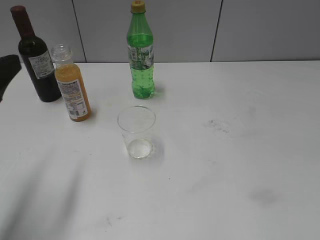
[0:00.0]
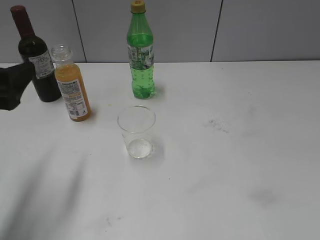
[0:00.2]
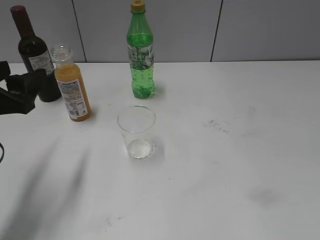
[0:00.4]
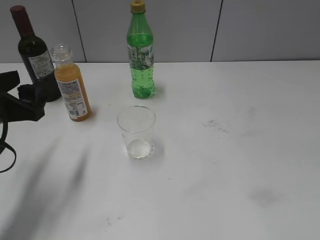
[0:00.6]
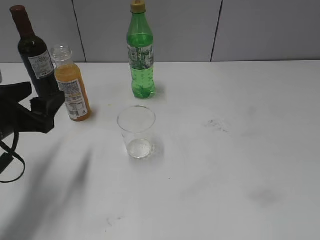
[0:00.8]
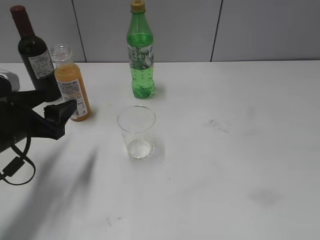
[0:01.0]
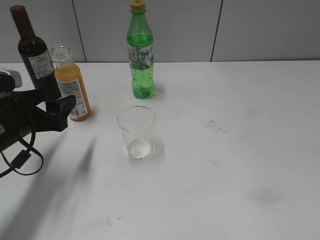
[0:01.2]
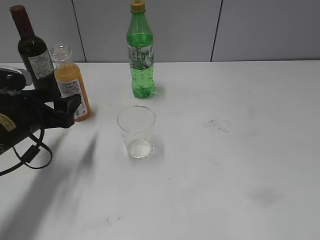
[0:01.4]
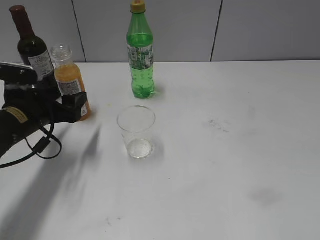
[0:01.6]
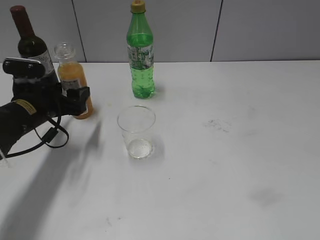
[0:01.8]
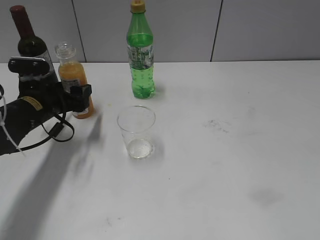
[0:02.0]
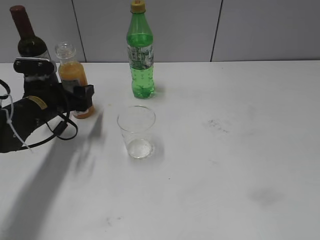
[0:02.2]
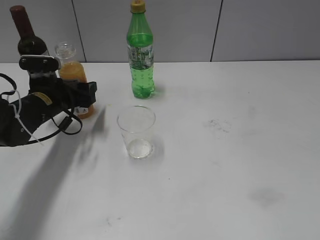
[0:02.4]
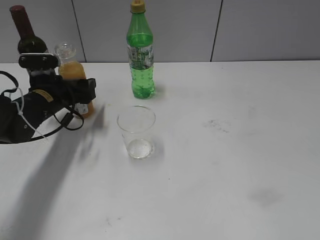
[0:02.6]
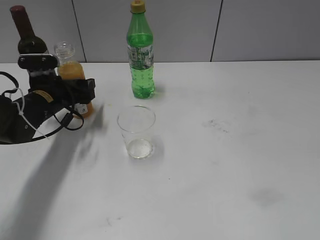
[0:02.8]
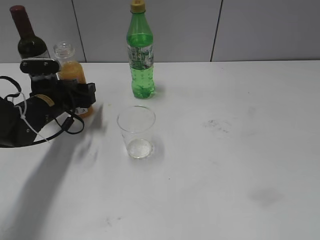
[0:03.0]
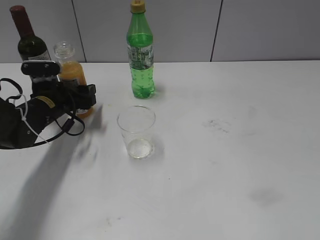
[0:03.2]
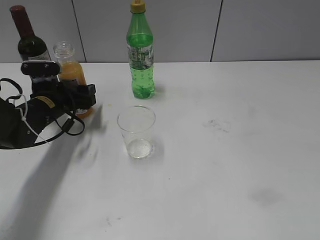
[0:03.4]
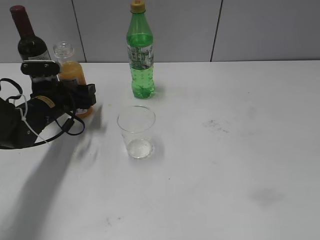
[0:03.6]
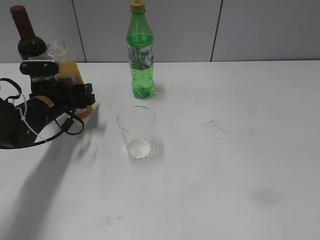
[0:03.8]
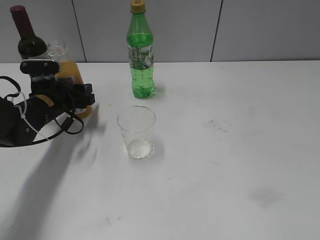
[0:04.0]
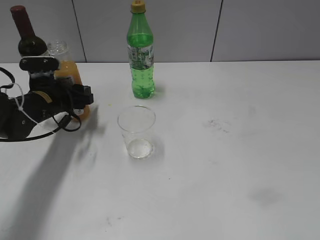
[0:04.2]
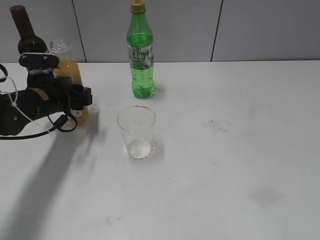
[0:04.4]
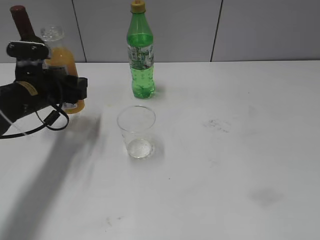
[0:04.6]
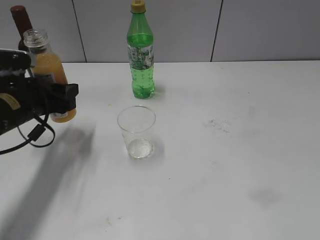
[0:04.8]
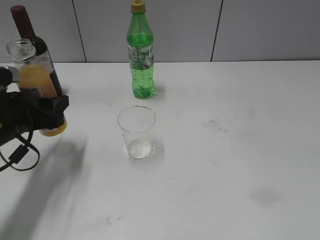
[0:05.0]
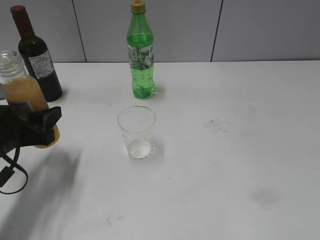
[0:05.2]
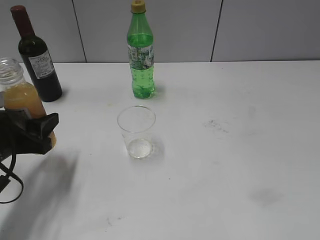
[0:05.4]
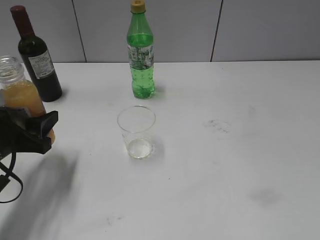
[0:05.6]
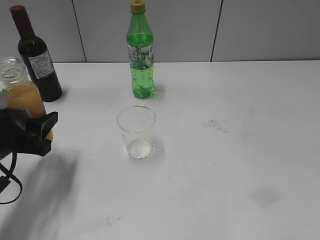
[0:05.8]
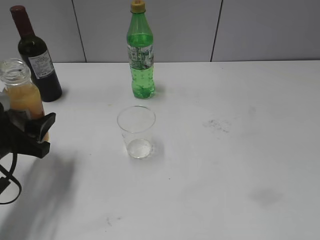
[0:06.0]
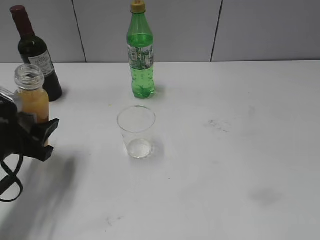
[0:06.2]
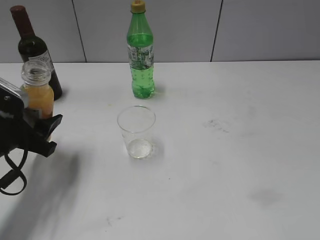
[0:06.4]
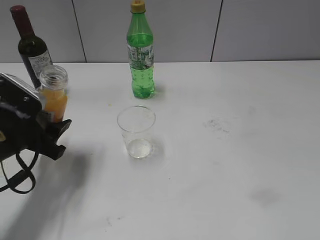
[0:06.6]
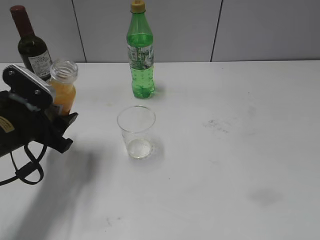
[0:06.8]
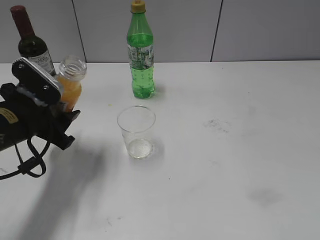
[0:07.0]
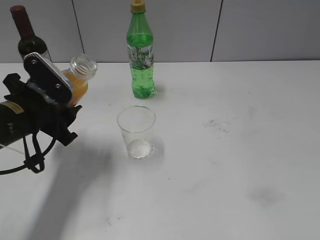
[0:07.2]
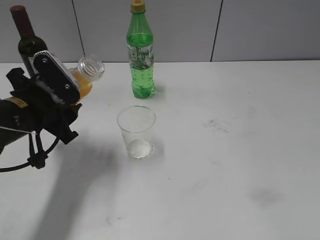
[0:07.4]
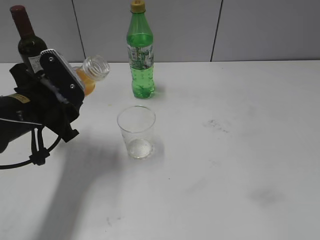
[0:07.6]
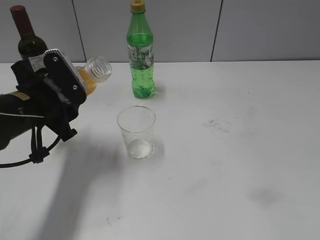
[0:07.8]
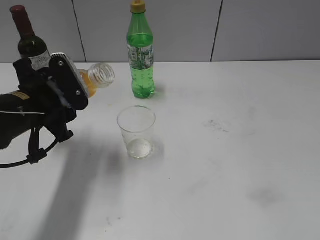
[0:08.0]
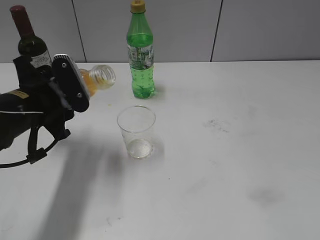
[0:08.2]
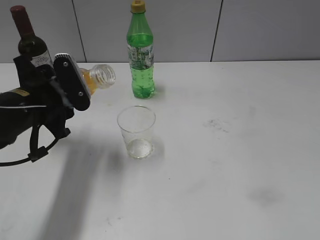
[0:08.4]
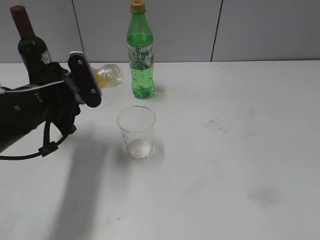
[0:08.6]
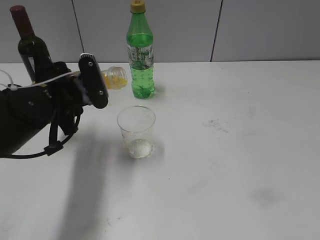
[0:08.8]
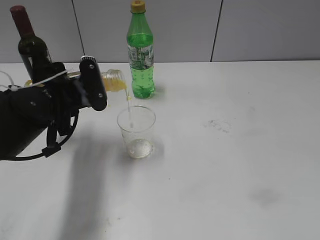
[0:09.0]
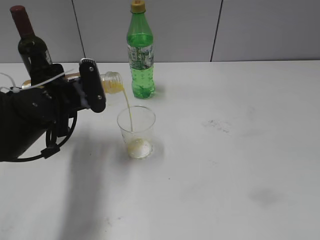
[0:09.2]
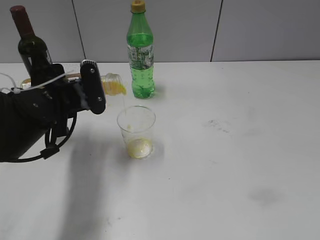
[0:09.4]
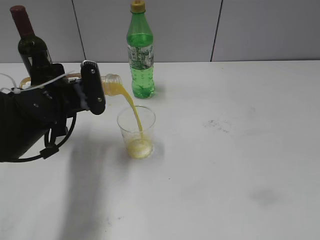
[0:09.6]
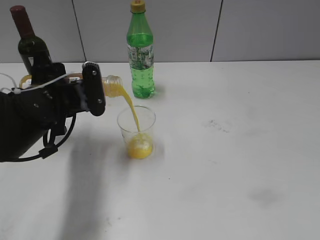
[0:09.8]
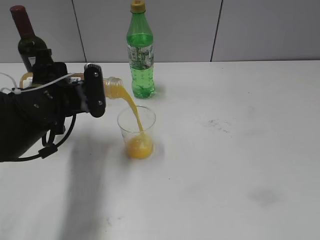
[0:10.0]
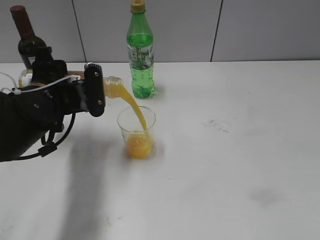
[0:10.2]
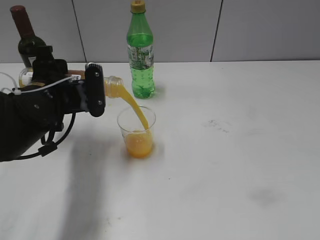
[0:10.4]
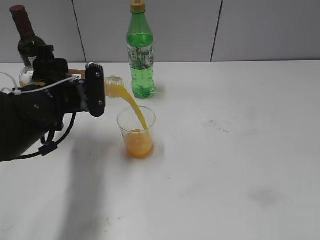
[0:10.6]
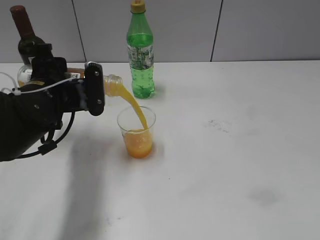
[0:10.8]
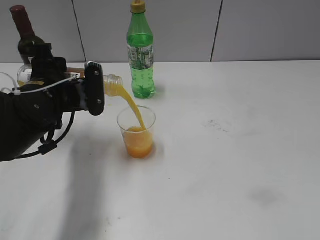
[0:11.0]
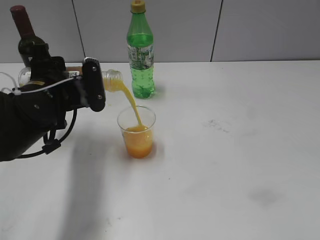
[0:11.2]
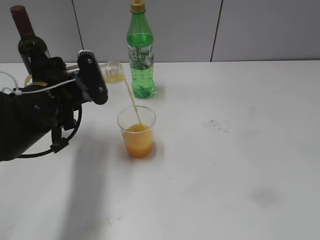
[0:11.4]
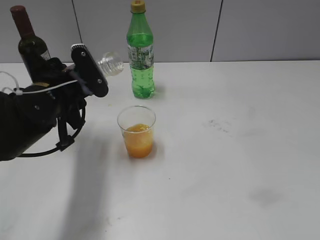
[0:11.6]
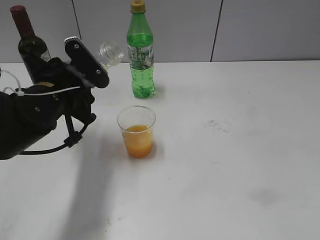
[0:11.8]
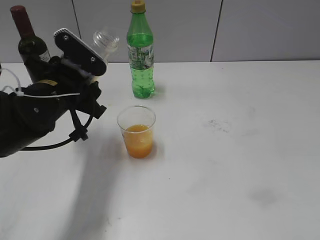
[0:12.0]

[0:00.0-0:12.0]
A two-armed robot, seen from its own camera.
Step, 0:00.0 to 0:03.8: Grasp the bottle with orange juice with left gripper.
Step, 0:04.0 to 0:11.6: Pour the orange juice from bottle to cup with left gripper.
0:00.0 to 0:01.6: The left gripper goes roughly 15 cm downward and forward.
0:01.6 to 0:03.0: The left gripper heads forward, covering about 5 cm.
0:03.0 to 0:04.4: The grippers make only small movements.
0:04.4 to 0:06.0: The left gripper shifts some 15 cm backward.
0:06.0 to 0:07.6: The left gripper heads to the right, covering some 5 cm.
0:09.0 to 0:10.4: There are only small adjustments of the grippers.

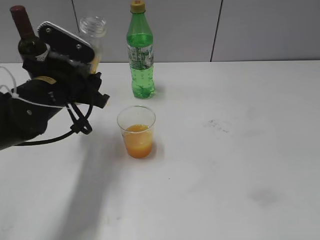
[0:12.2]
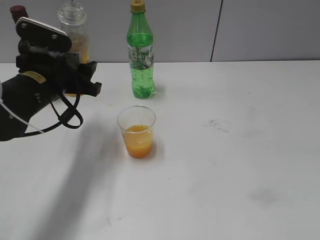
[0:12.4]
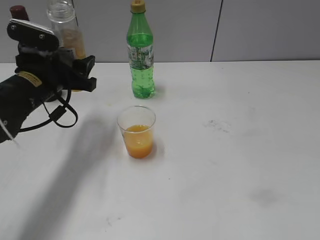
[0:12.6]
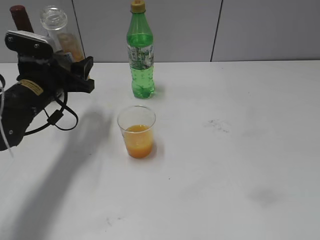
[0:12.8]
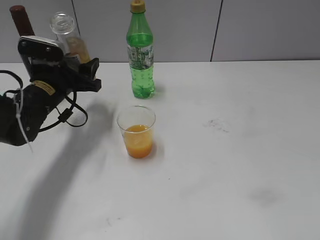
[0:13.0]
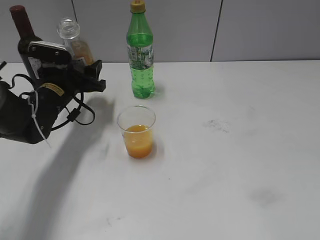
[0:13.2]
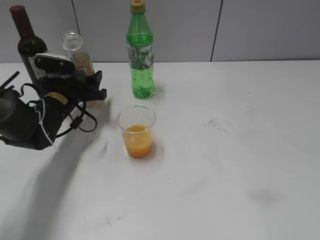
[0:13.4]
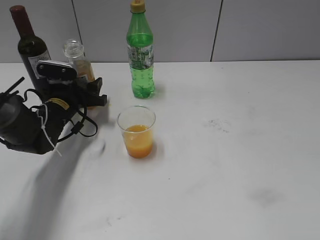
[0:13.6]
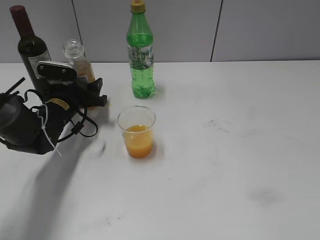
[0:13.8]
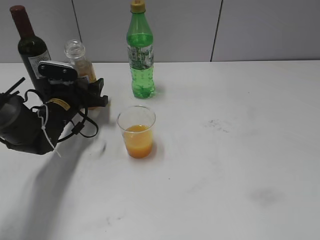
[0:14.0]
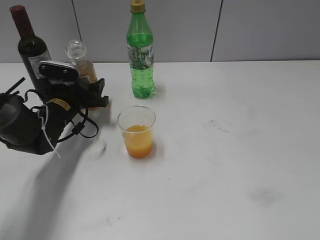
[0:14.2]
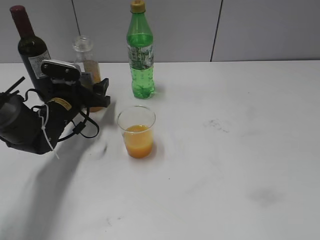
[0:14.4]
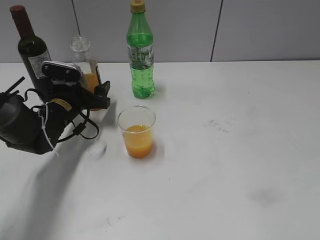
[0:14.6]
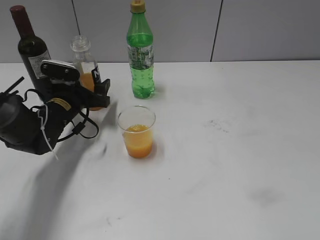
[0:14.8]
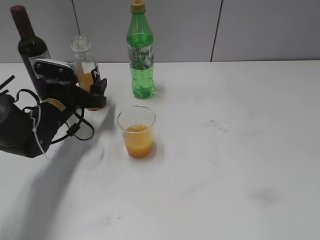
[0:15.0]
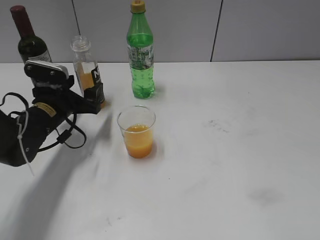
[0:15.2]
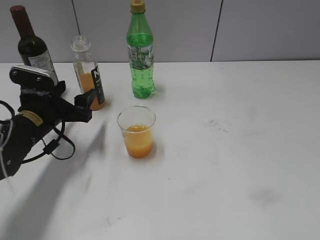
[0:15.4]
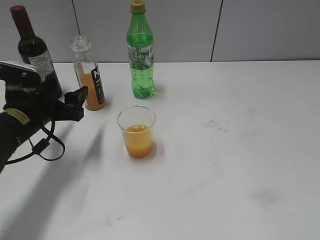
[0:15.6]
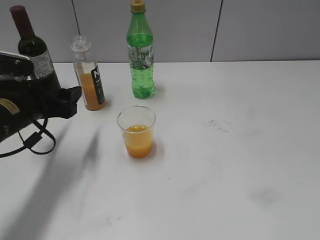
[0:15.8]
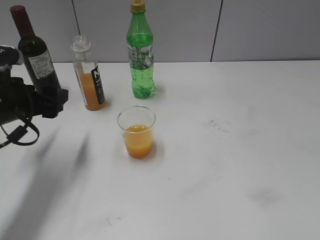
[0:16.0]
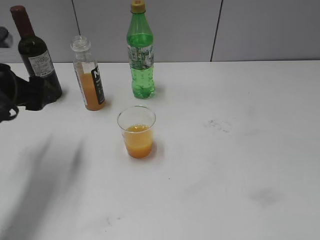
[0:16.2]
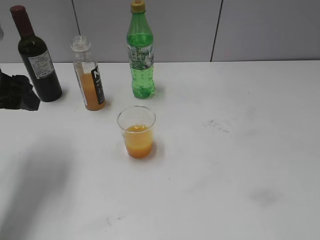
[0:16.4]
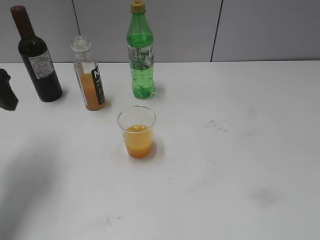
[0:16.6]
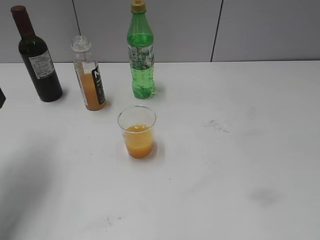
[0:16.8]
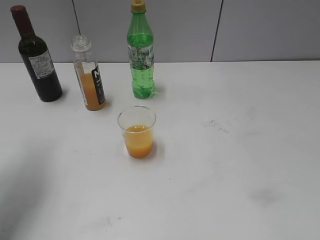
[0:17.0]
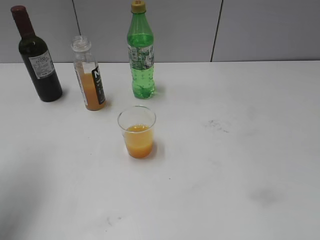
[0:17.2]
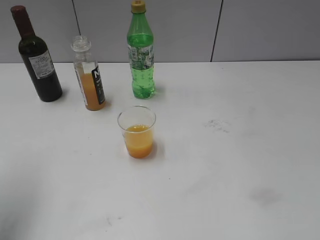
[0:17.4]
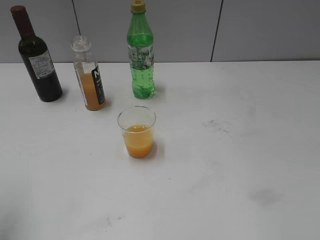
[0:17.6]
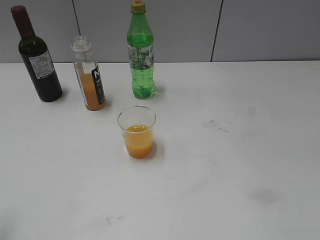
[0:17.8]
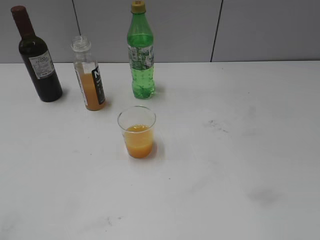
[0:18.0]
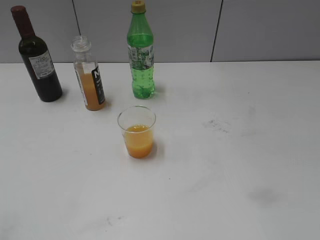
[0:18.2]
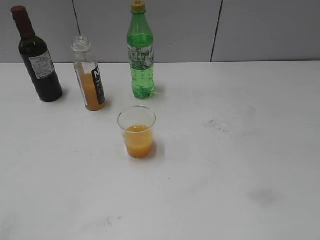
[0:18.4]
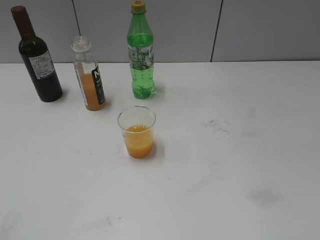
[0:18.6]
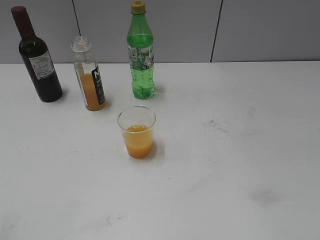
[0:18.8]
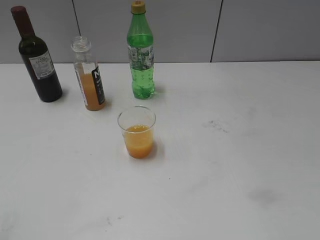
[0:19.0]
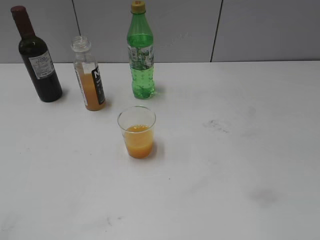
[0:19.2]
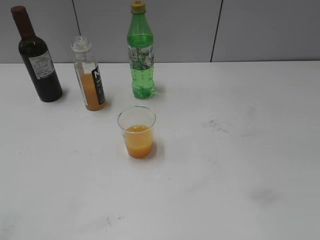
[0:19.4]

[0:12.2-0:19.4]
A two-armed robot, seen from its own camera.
Step, 0:12.2 to 0:14.6: Place the orange juice bottle on the table with left gripper.
0:12.2 to 0:13.6: The left gripper is displaced downward and forward by about 15 cm.
0:13.6 to 0:15.0: The left gripper opens.
0:15.0 to 0:16.6: The left gripper travels upward, backward and to the left by roughly 20 cm.
0:16.6 to 0:18.0: The left gripper moves backward, roughly 20 cm.
